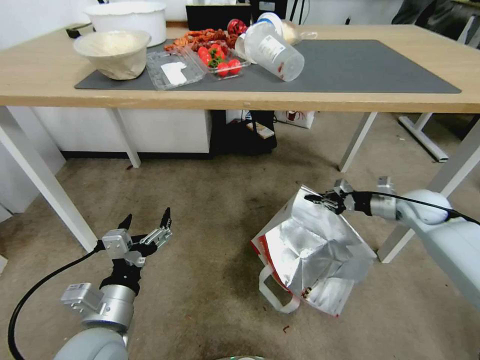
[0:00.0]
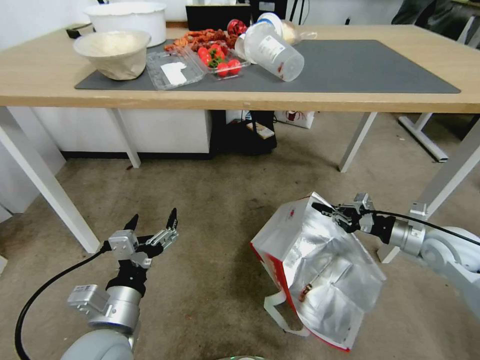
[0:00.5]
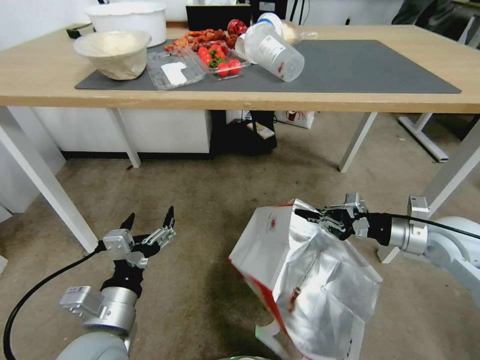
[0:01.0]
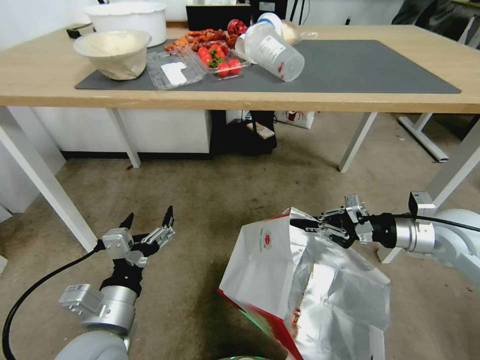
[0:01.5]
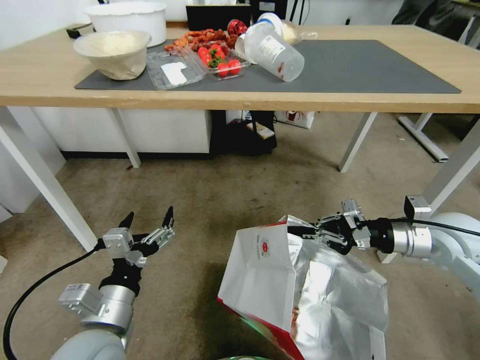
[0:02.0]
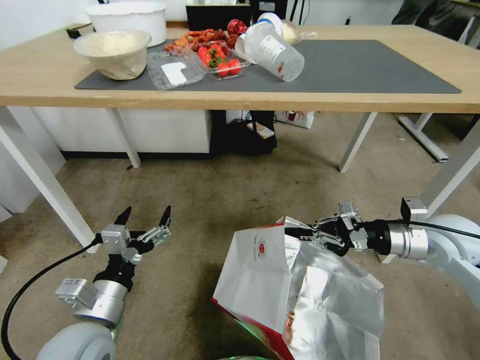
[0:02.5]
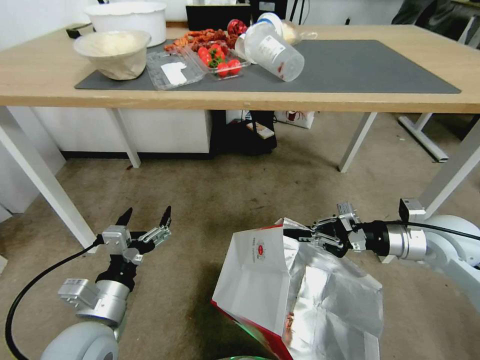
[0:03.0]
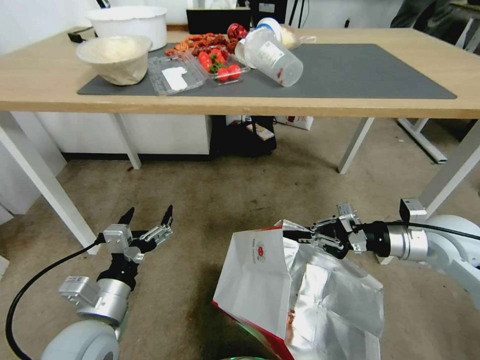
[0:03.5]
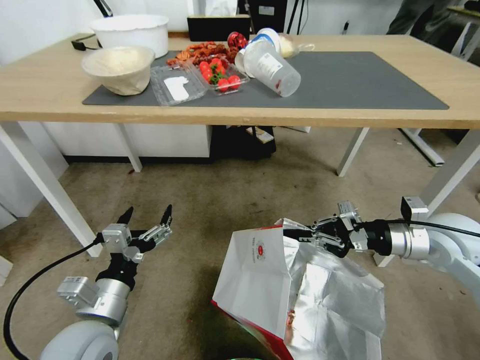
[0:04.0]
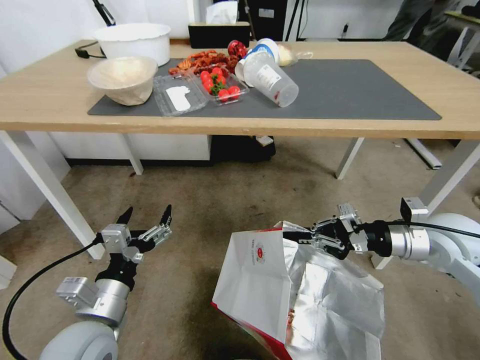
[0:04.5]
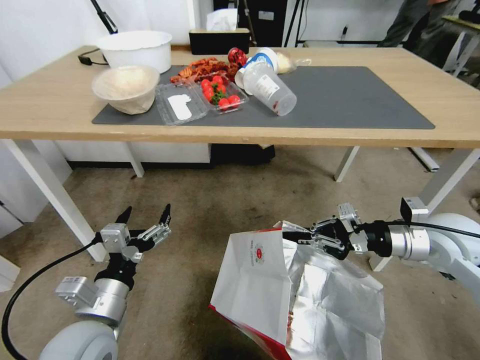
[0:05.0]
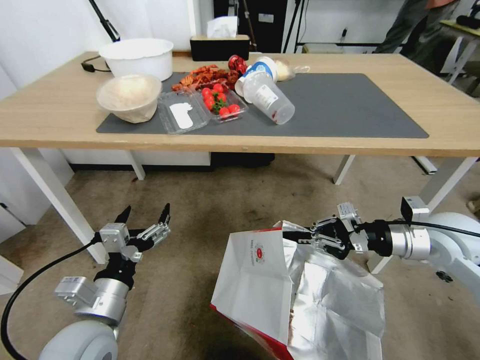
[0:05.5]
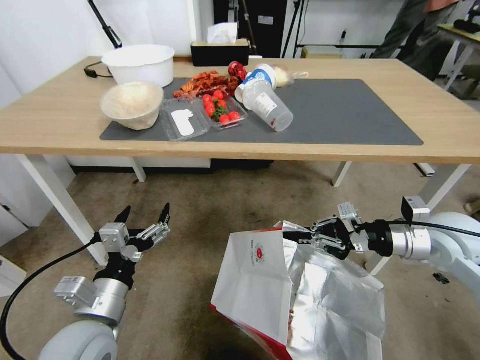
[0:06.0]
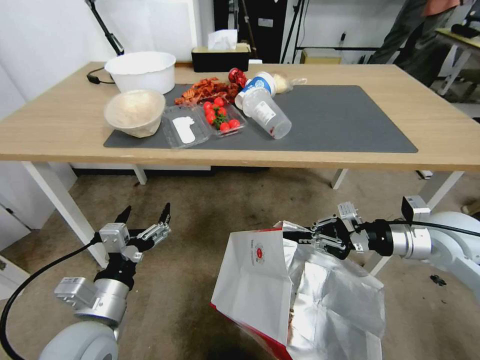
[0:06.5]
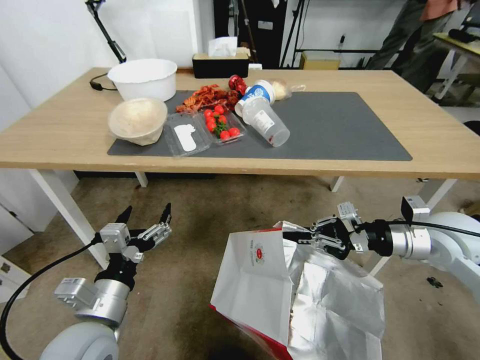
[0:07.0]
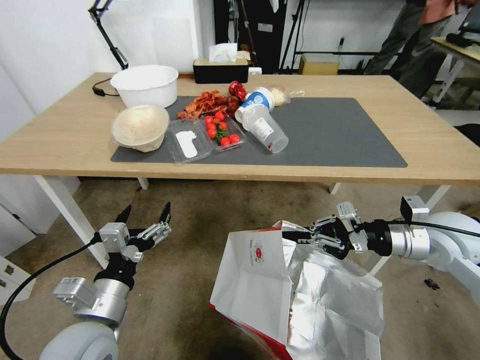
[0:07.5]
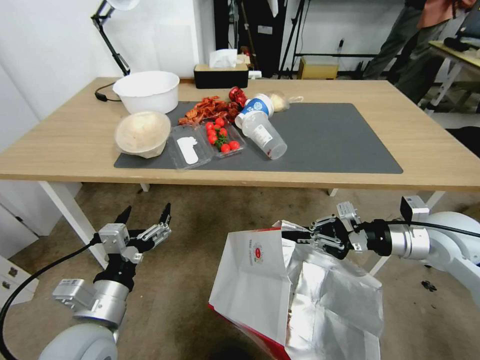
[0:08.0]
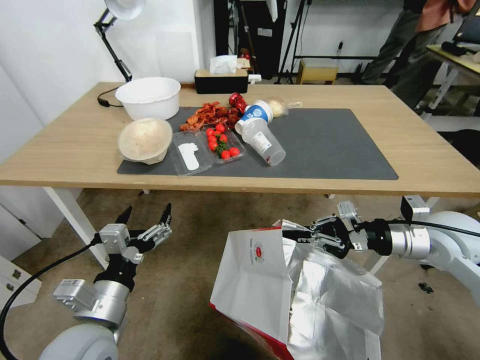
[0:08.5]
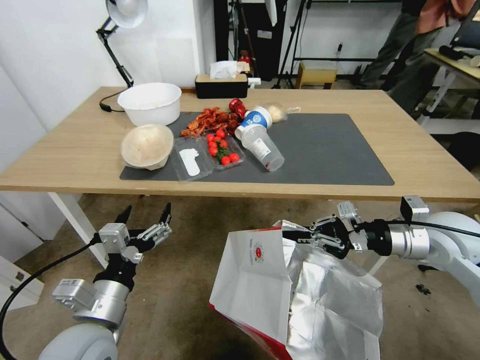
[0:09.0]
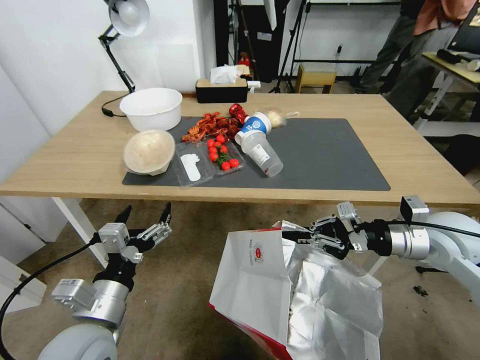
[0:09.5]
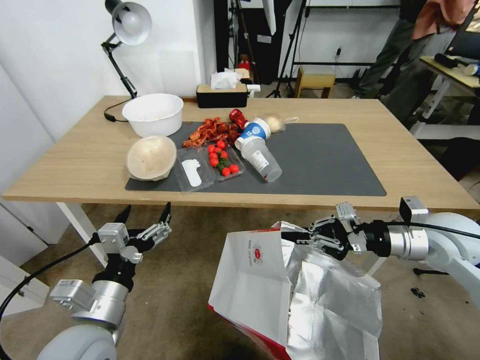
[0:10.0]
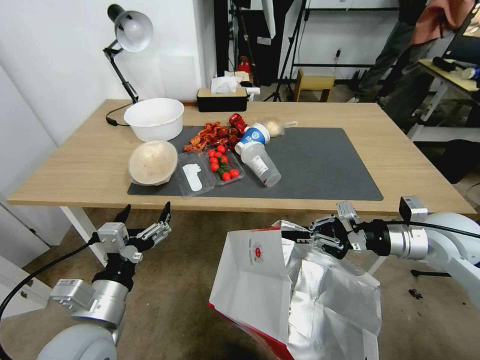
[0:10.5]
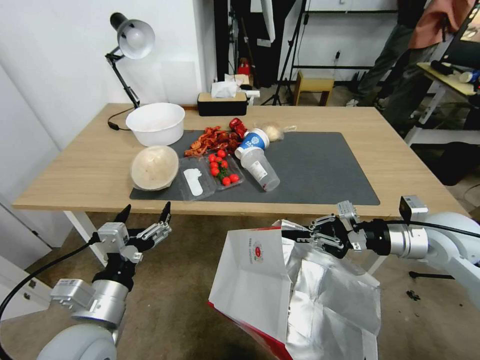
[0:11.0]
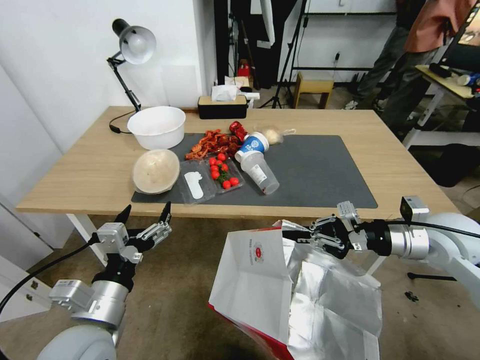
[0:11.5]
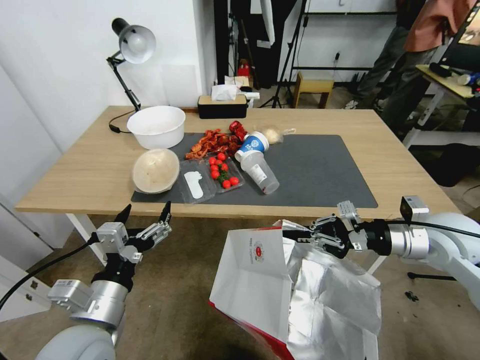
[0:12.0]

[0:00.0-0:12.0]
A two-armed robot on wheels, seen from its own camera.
Task of the whole recording: Pick up the food delivery bag from the floor and place it on the table.
0:00.0 to 0:02.0: The right gripper heads backward, upward and to the left, covering approximately 15 cm.

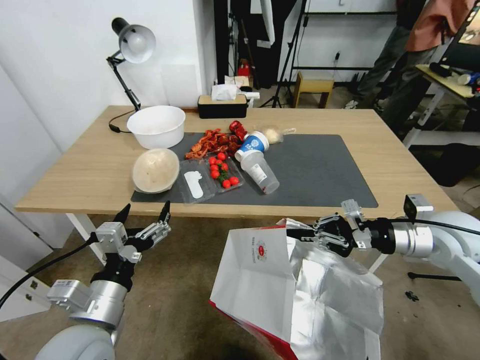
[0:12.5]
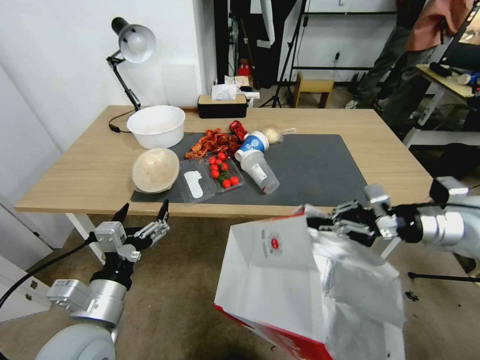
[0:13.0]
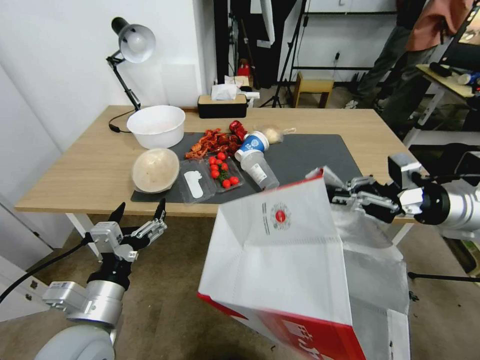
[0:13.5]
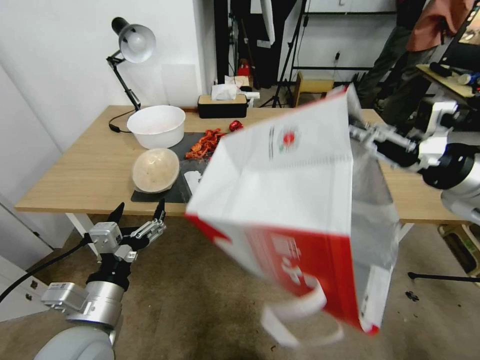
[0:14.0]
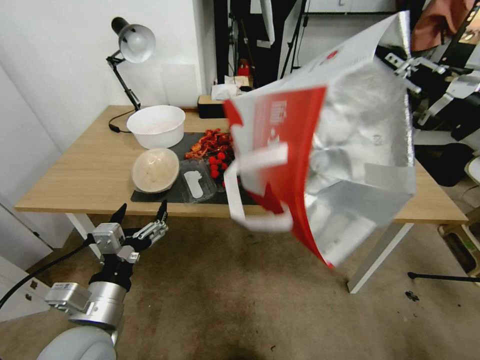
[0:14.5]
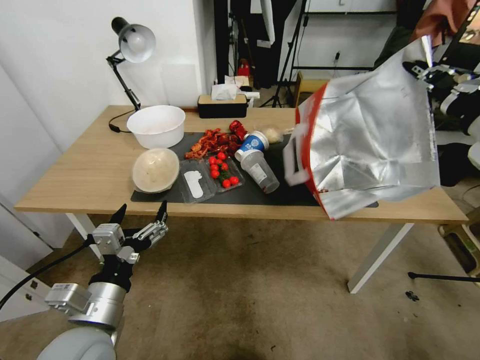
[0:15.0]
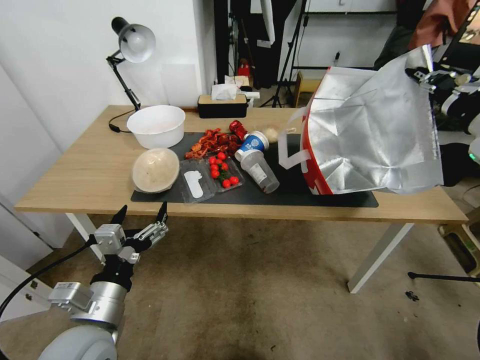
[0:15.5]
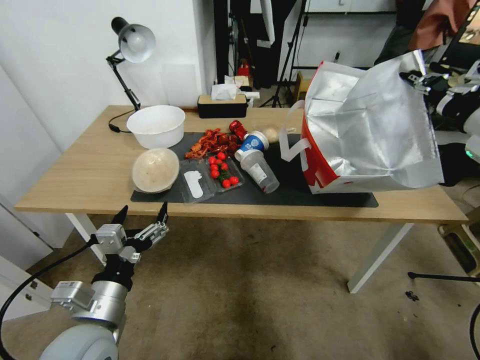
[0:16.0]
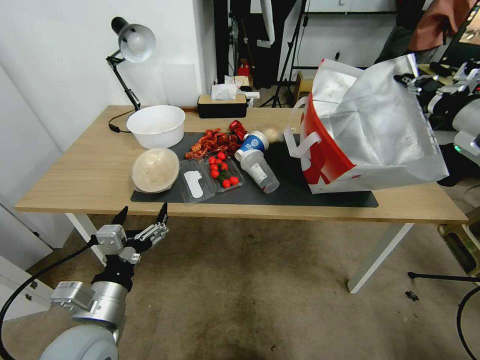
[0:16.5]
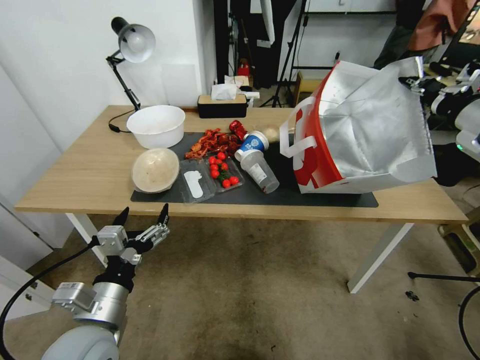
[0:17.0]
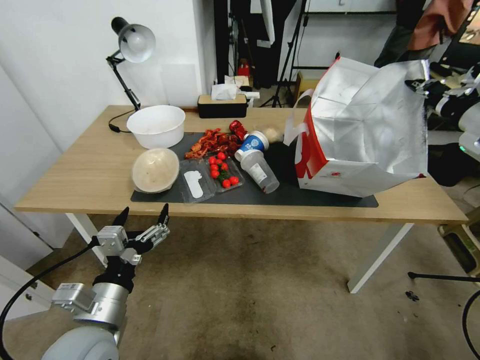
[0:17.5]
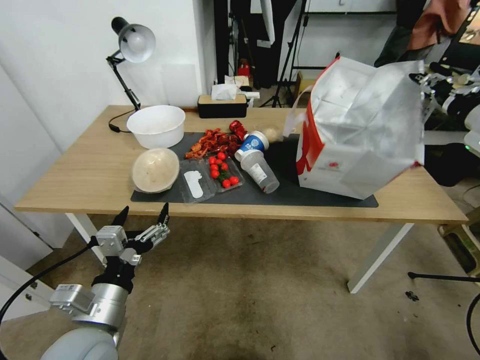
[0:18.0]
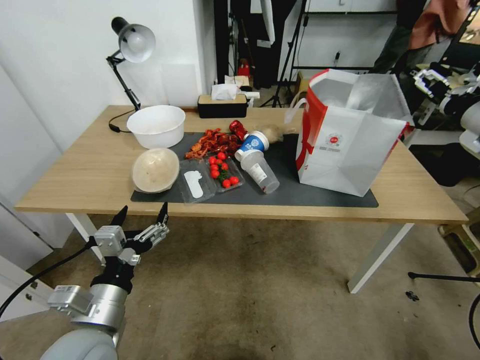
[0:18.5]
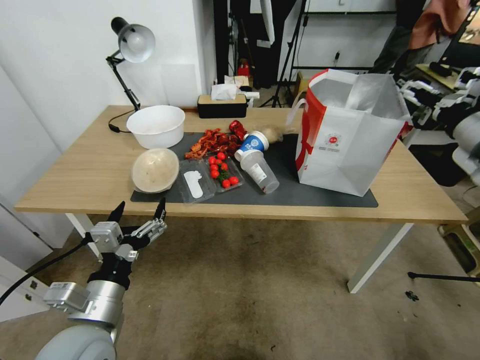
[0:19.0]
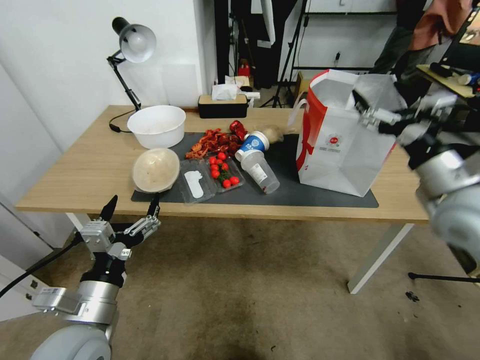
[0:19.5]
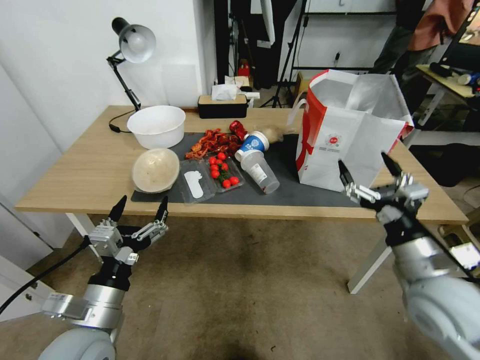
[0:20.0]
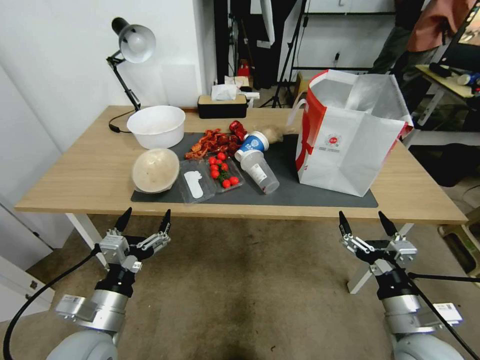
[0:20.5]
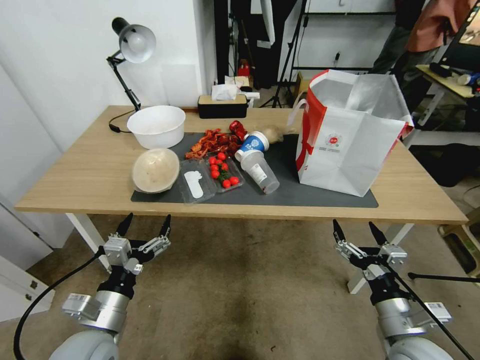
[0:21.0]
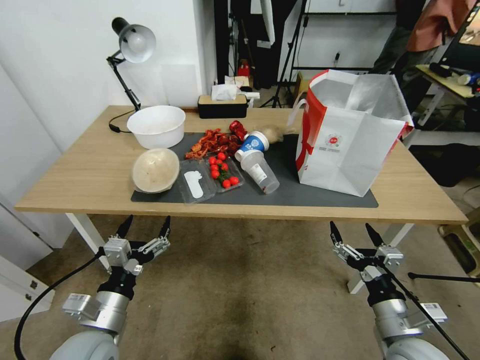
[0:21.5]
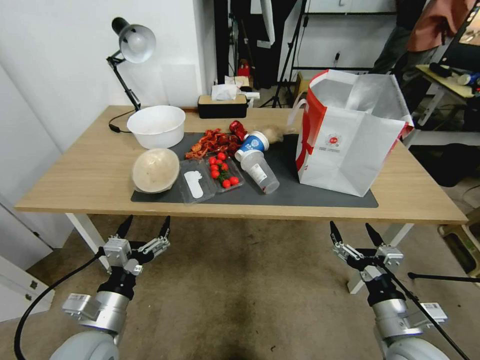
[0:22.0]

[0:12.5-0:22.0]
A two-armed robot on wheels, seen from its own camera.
Task of the whole recording: Pick up the food delivery bag from the floor and place it on the table.
0:12.5 to 0:14.5: The right gripper moves upward, some 20 cm.
0:14.5 to 0:16.5: The right gripper goes approximately 10 cm forward and to the right.
0:16.5 to 0:18.0: The right gripper opens.
0:18.0 to 0:20.0: The right gripper travels downward, backward and to the left by some 30 cm, and opens its fingers.
0:20.0 to 0:22.0: The right gripper shifts about 15 cm downward and backward. The left gripper goes some 5 cm downward.
